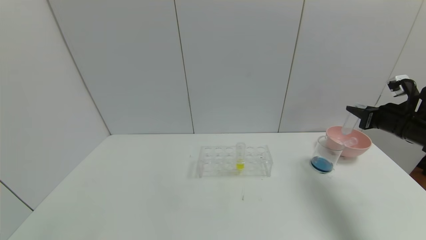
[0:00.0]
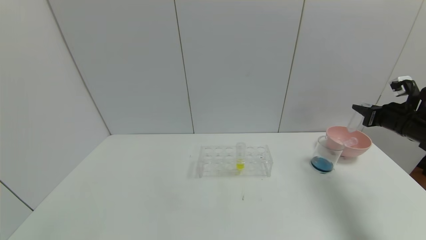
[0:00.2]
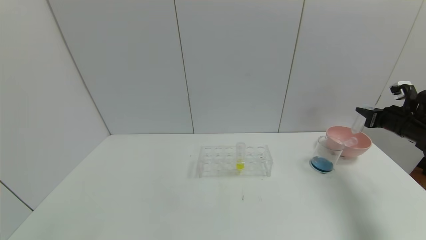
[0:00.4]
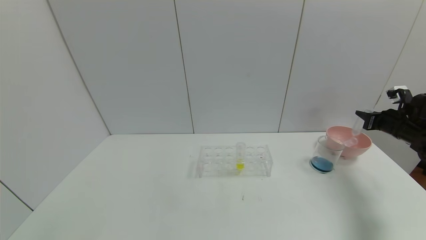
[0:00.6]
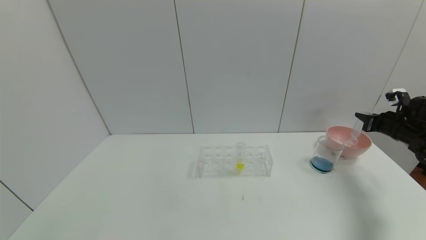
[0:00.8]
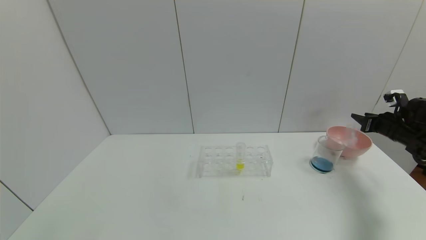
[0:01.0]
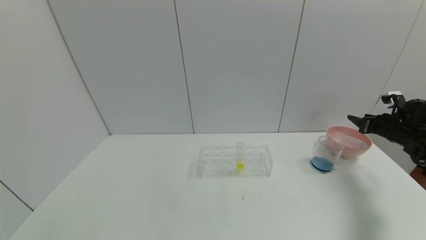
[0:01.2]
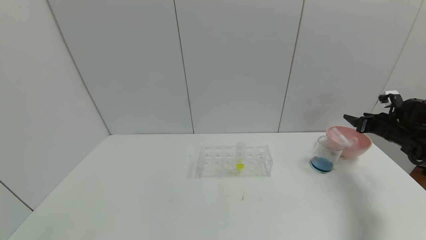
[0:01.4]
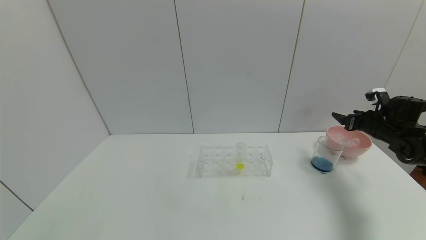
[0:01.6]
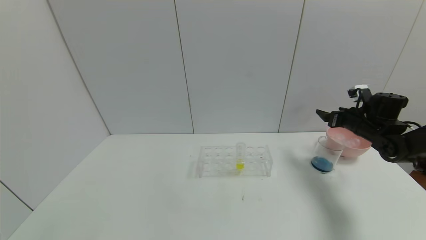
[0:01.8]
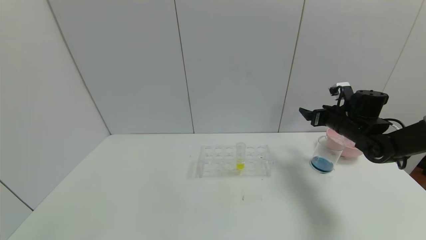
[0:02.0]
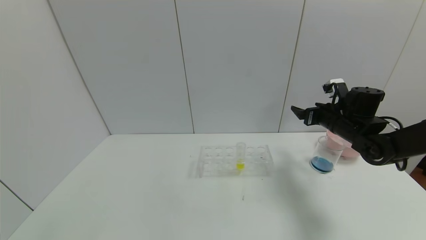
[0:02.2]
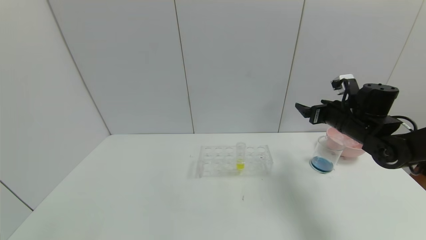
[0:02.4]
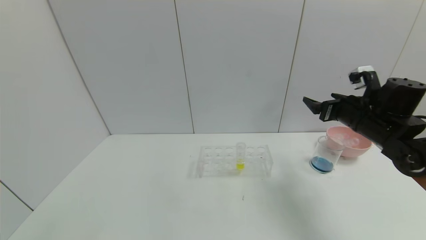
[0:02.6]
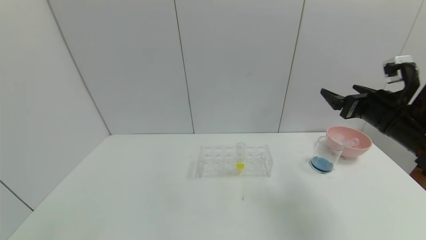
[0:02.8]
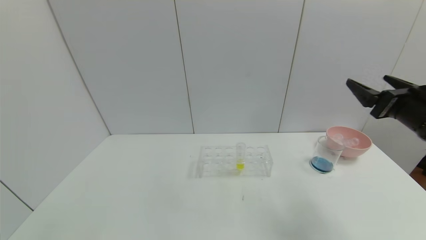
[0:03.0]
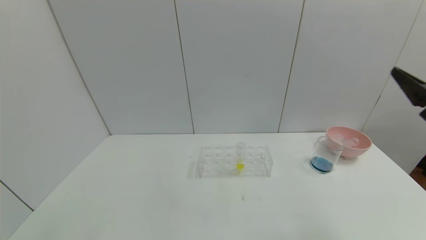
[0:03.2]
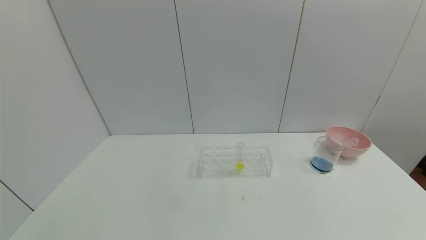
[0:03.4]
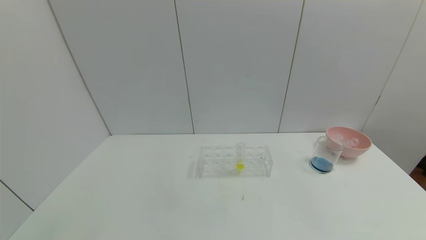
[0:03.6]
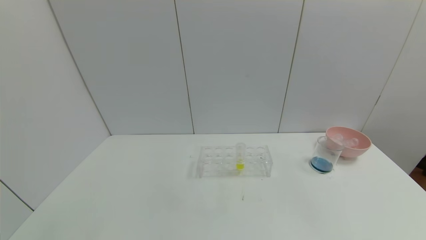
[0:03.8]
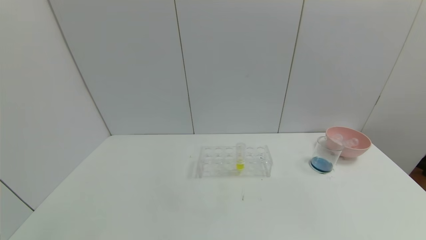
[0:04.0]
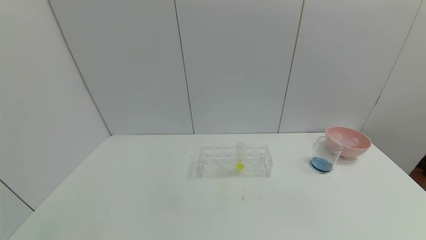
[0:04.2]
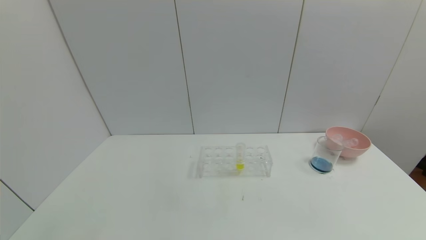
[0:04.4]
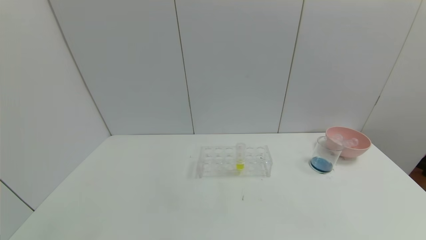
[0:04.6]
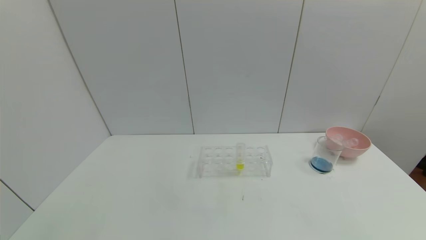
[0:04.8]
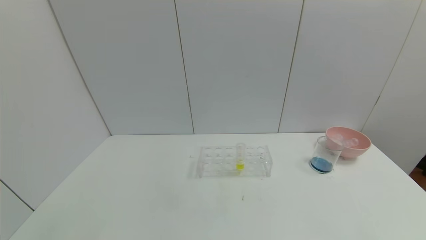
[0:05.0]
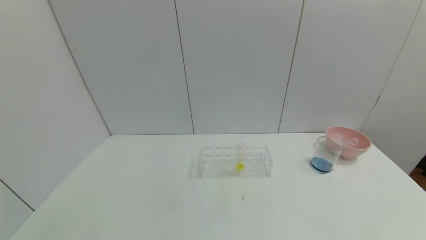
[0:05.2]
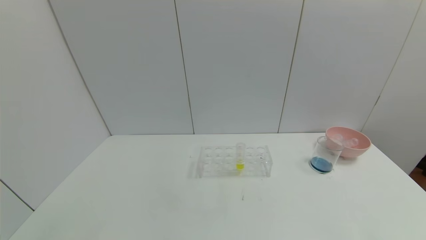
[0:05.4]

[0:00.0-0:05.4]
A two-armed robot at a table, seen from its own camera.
Task of the whole recording: pick up the test tube with red pigment and the test tube with blue pigment by grippers and pour them into the container.
Step, 0:00.0 to 0:01.2: Place the test tube into the bowl with right gripper.
0:00.0 to 0:01.4: The right gripper goes some 10 cm forward, downward and to the right, and opens its fingers.
0:01.4 to 0:02.8: The right gripper heads to the left, backward and upward, covering roughly 20 cm.
0:02.8 to 0:04.0: The right gripper moves backward, approximately 35 cm.
